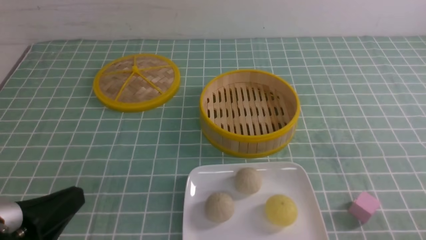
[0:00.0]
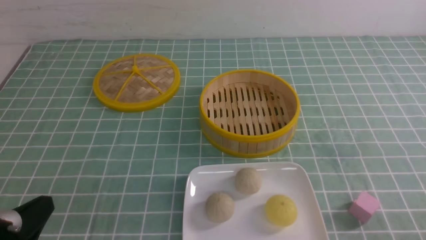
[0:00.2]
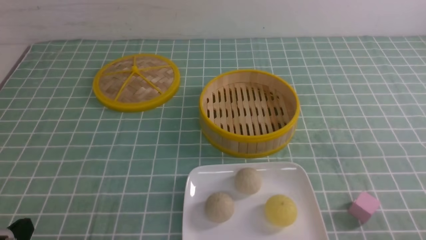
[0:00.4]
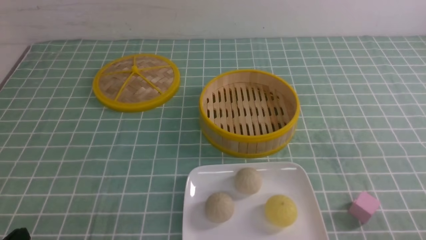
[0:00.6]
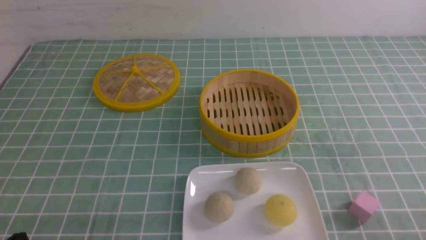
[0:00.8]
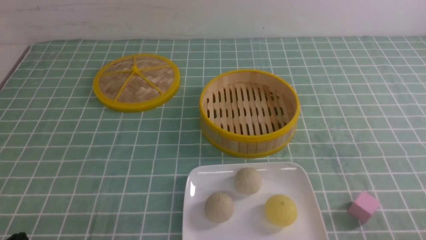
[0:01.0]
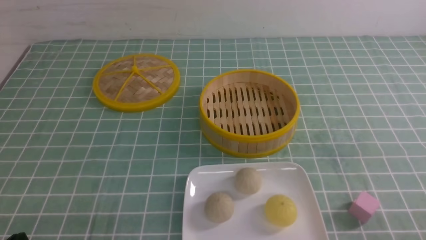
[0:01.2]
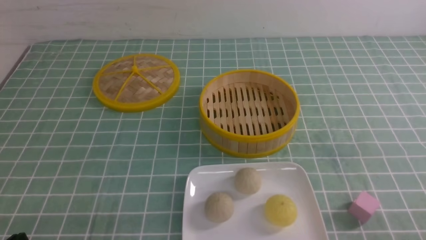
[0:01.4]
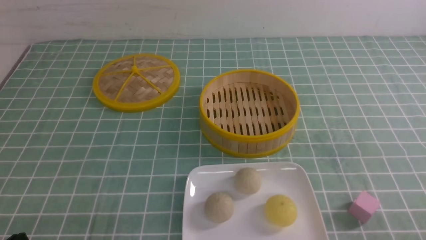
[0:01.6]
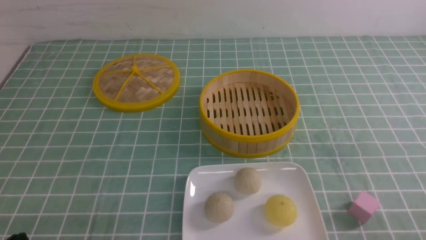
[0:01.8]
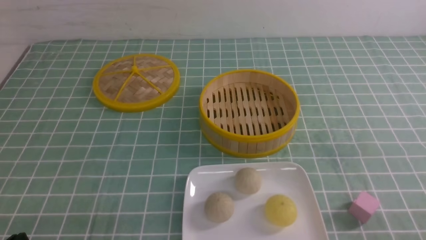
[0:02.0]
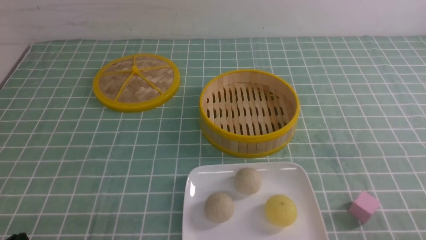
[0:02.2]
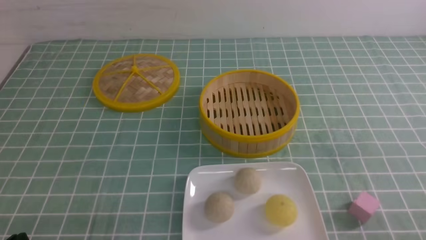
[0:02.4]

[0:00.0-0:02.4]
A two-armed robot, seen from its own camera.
0:00.0 to 0:01.2: The left gripper shifts about 10 cm downward.
0:01.2 to 0:02.4: Both grippers stay put.
